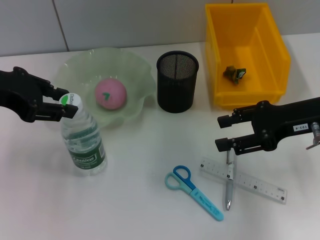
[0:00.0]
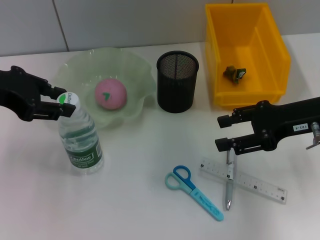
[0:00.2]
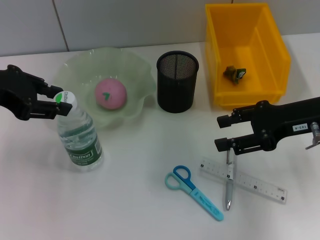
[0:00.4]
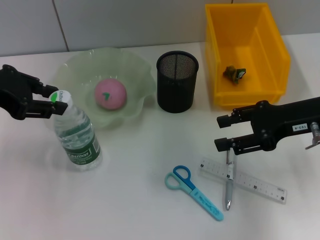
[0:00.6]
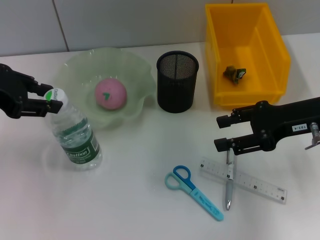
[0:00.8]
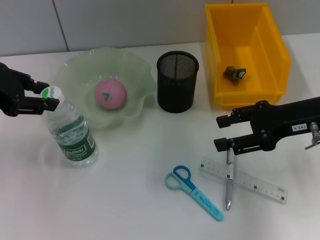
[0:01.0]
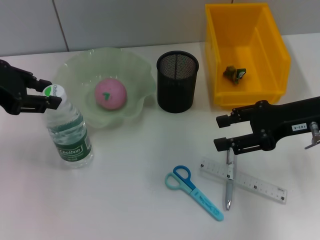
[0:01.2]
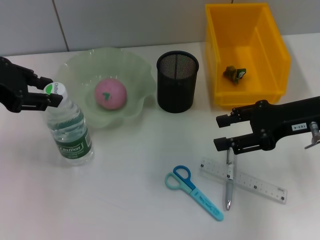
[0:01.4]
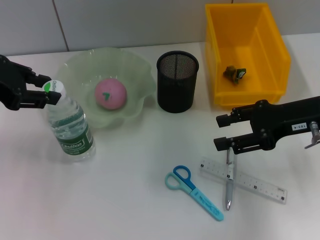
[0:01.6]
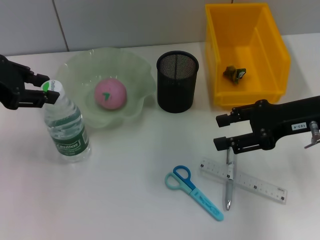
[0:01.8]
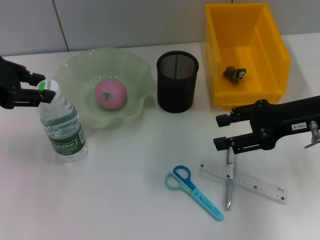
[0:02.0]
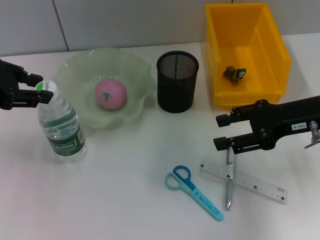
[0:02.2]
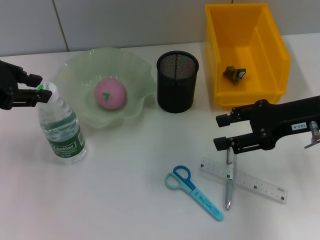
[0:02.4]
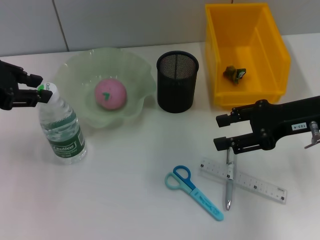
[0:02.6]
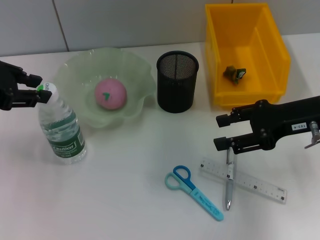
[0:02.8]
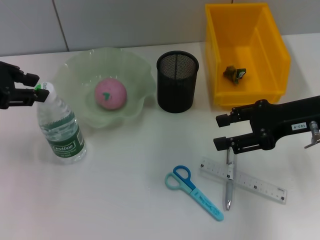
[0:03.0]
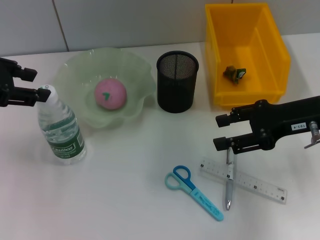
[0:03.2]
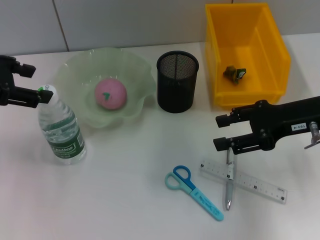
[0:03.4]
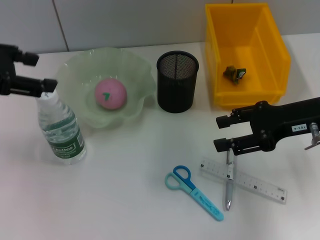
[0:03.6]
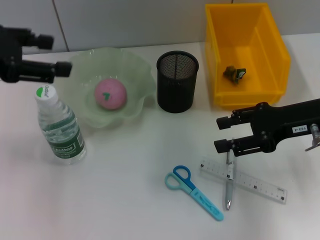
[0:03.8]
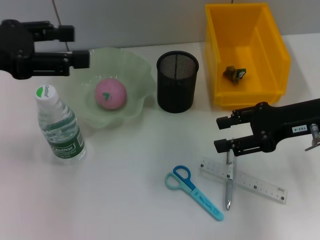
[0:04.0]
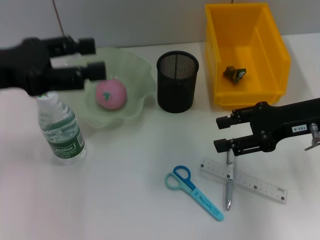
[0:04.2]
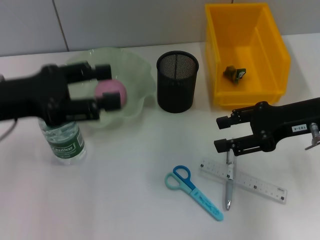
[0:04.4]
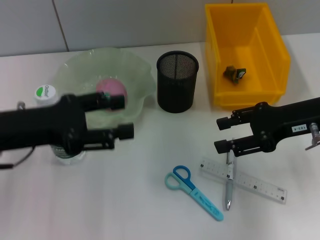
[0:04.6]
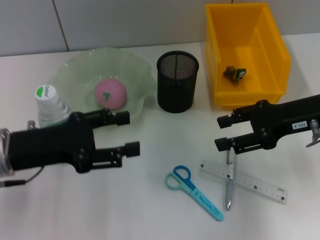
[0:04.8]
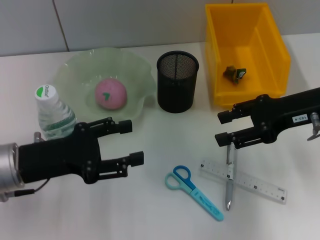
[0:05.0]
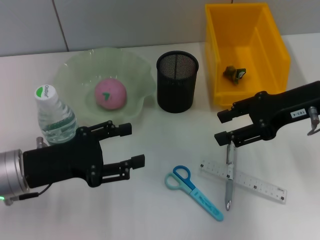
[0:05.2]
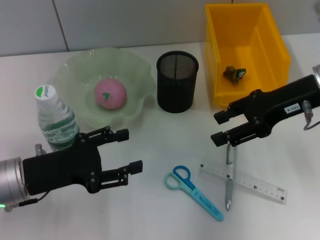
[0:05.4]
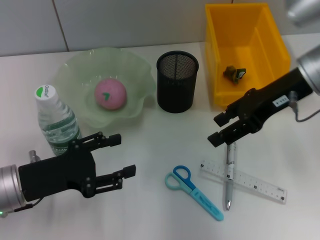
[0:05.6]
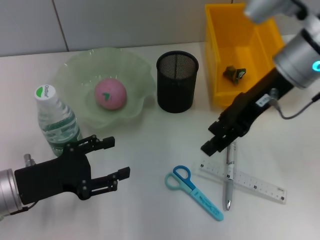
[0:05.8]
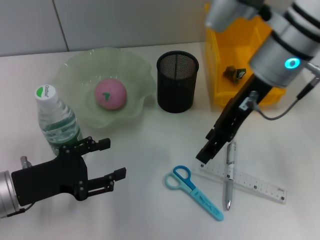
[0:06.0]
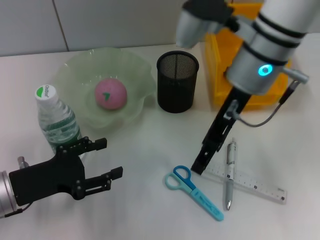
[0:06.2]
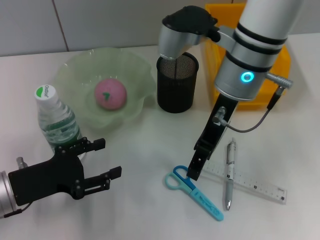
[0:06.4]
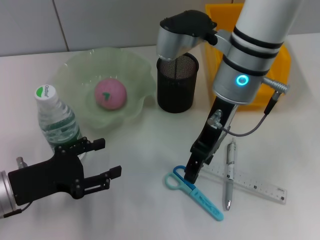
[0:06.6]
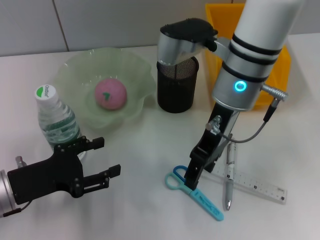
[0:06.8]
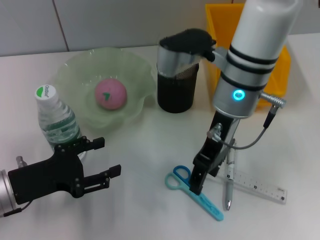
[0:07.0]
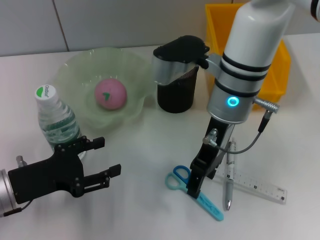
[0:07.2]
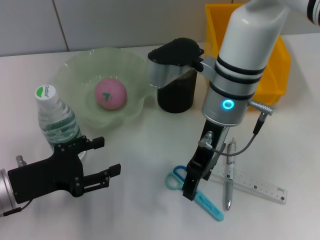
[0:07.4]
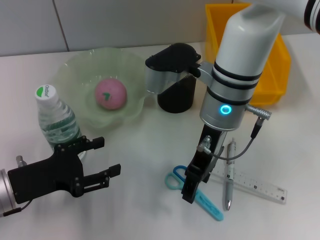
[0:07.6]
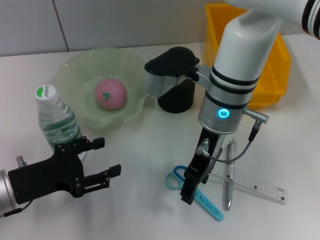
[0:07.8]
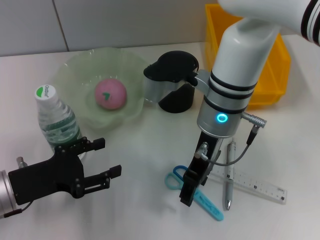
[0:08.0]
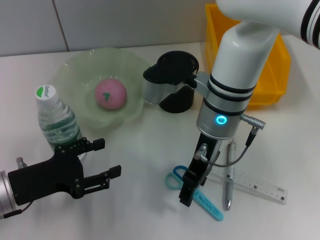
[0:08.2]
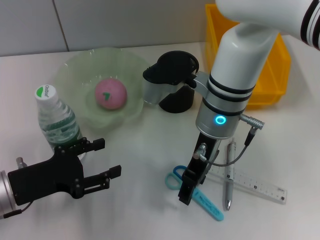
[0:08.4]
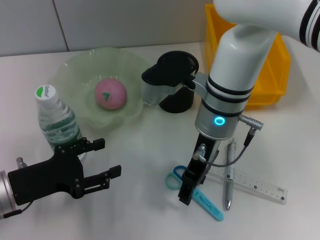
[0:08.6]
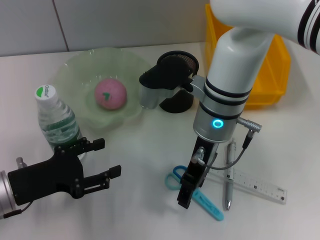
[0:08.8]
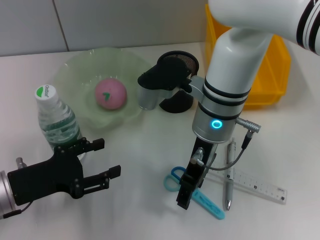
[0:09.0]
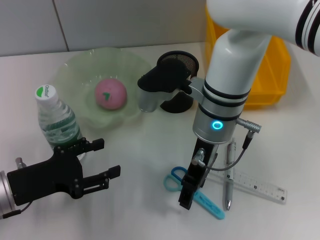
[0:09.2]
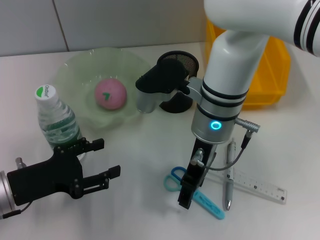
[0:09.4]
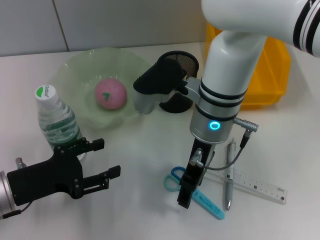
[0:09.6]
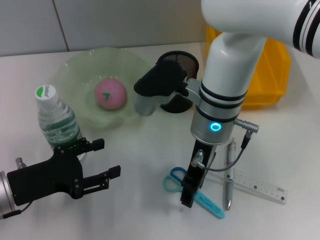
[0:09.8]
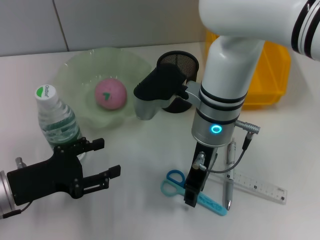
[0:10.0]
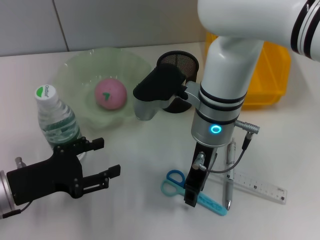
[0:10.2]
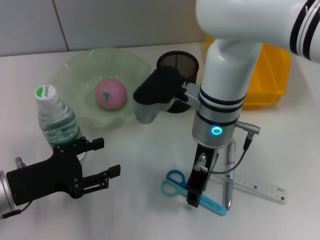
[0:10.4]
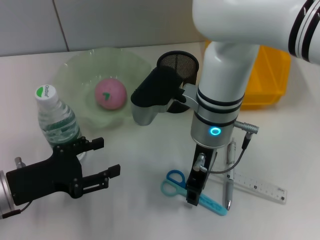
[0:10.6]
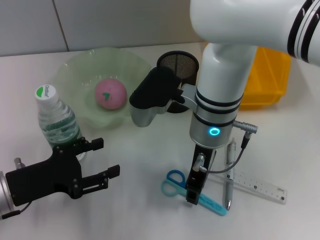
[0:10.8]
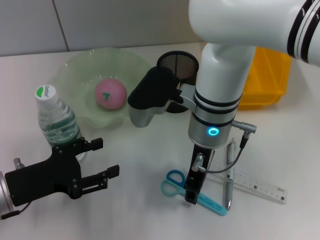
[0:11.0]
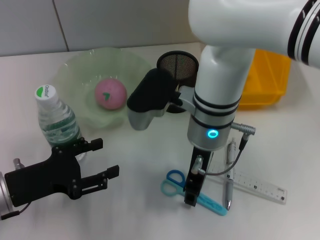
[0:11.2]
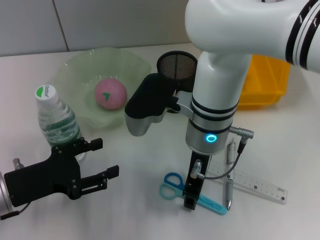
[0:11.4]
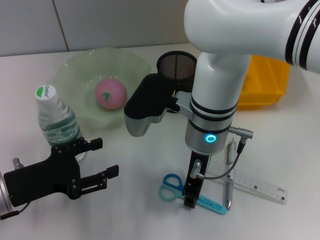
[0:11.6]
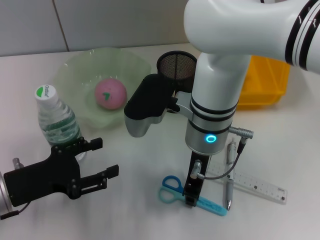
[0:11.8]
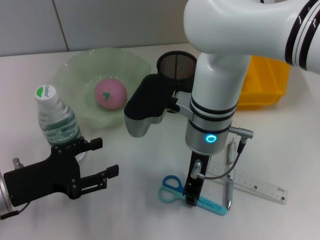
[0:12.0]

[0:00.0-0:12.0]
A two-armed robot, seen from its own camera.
Step, 0:00.0 to 0:03.6: Place the water bottle on the table with the left hand.
0:00.0 to 0:01.6: The grippers stay close to where they were, moving slightly.
0:01.6 to 0:03.0: Both grippers stay put.
0:03.0 to 0:04.4: The left gripper shifts approximately 5 cm downward, and opens.
0:04.4 to 0:06.0: The left gripper is displaced downward by some 15 cm. Meanwhile the right gripper travels to the left, upward and forward by about 15 cm.
0:06.0 to 0:07.6: The right gripper shifts about 10 cm to the left and downward.
0:07.6 to 0:12.0: There are only small adjustments of the grippers.

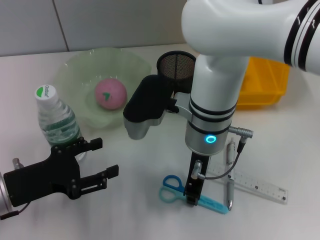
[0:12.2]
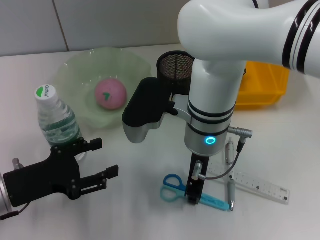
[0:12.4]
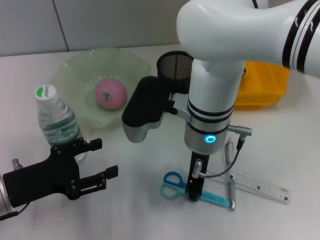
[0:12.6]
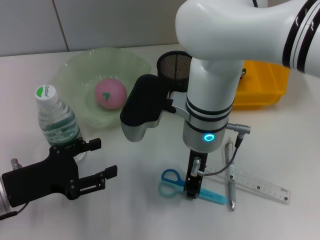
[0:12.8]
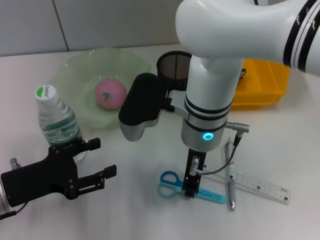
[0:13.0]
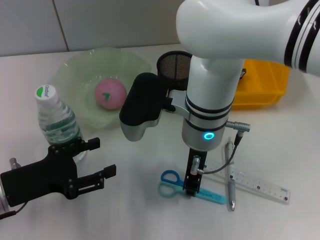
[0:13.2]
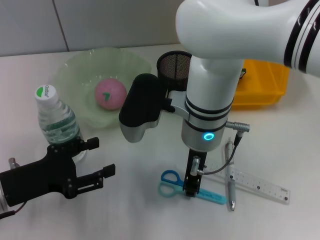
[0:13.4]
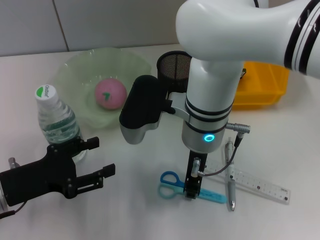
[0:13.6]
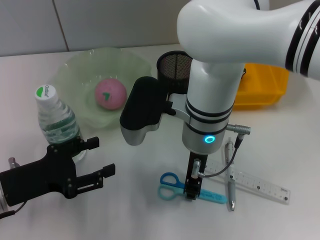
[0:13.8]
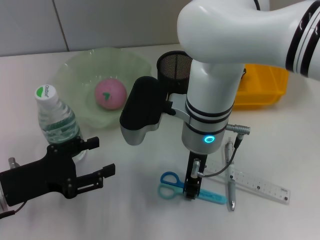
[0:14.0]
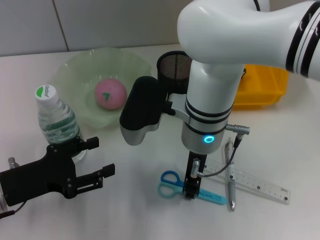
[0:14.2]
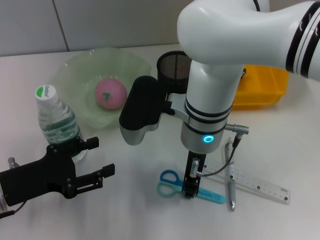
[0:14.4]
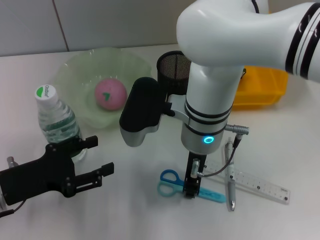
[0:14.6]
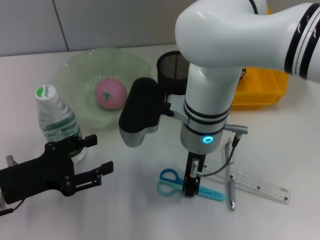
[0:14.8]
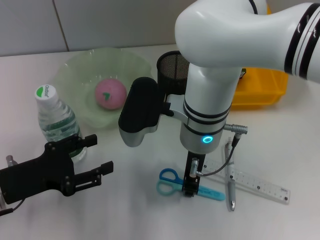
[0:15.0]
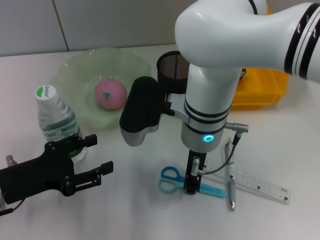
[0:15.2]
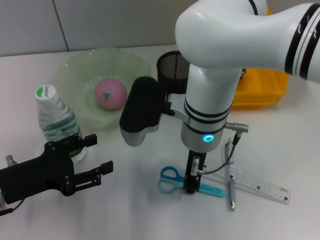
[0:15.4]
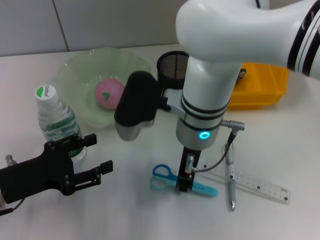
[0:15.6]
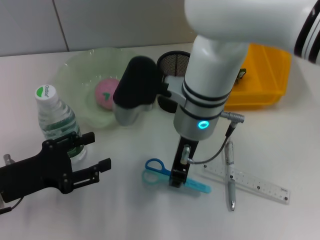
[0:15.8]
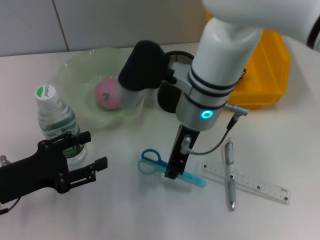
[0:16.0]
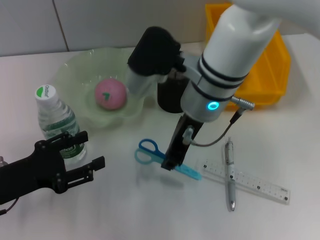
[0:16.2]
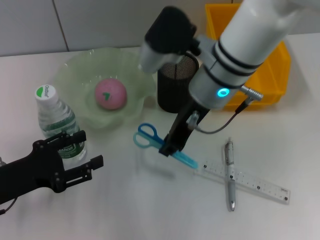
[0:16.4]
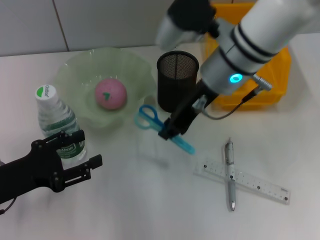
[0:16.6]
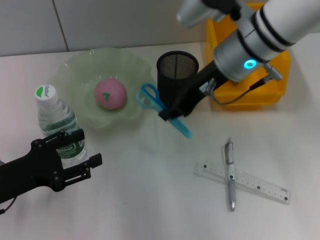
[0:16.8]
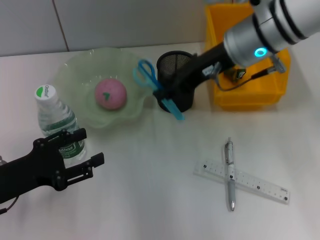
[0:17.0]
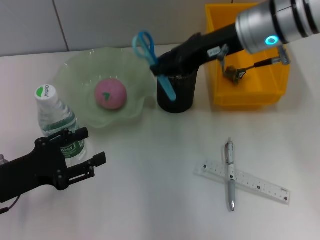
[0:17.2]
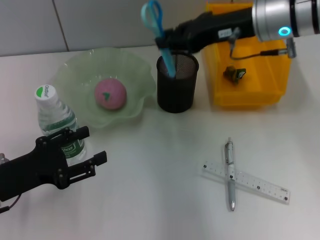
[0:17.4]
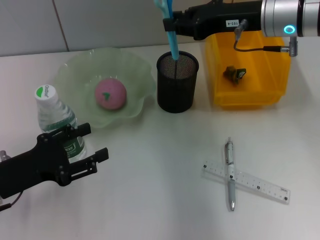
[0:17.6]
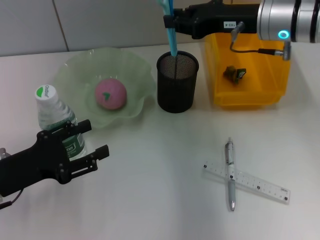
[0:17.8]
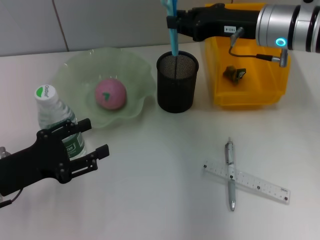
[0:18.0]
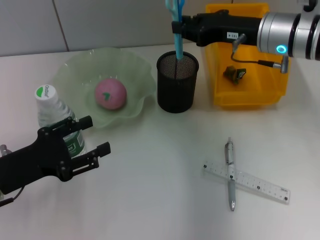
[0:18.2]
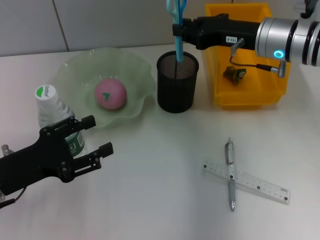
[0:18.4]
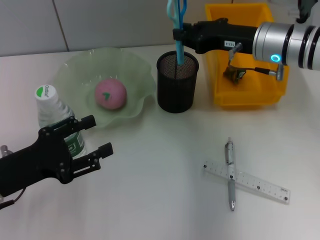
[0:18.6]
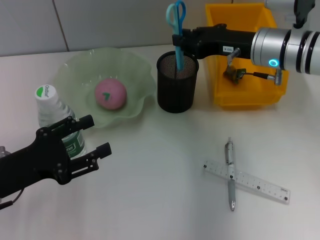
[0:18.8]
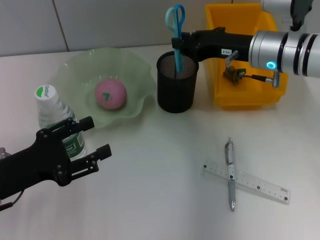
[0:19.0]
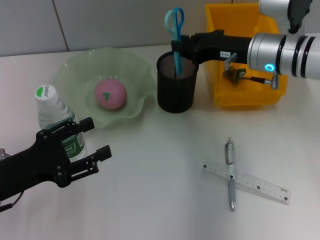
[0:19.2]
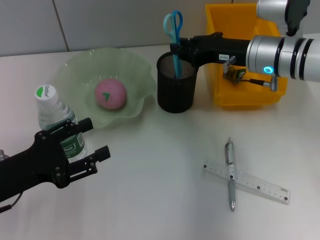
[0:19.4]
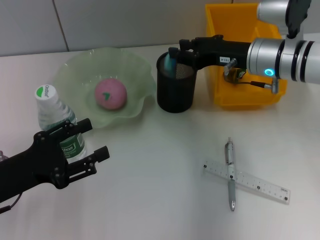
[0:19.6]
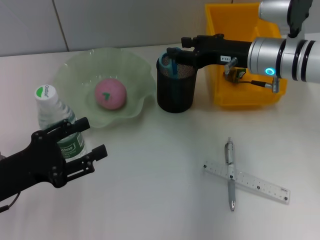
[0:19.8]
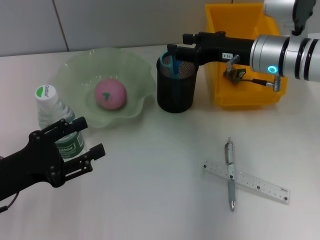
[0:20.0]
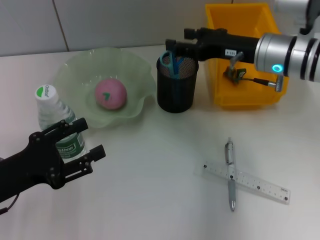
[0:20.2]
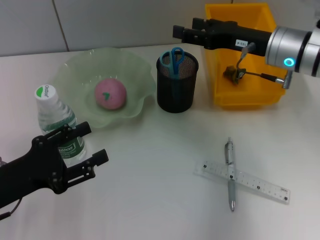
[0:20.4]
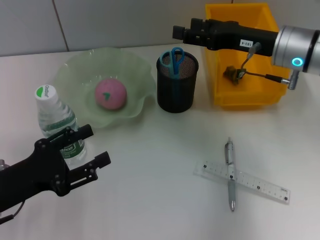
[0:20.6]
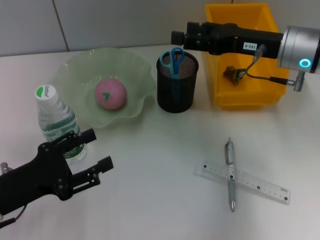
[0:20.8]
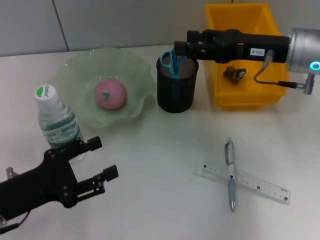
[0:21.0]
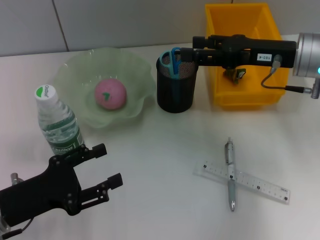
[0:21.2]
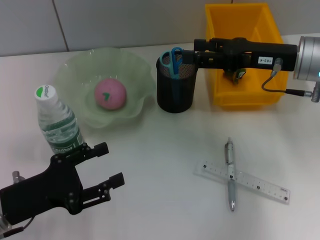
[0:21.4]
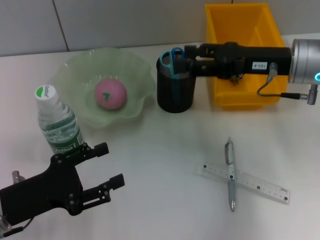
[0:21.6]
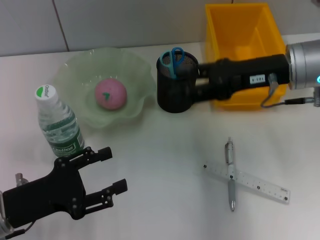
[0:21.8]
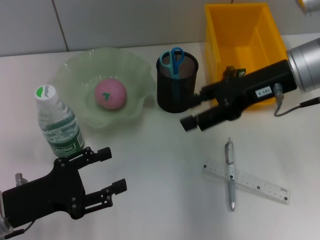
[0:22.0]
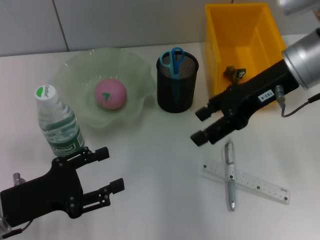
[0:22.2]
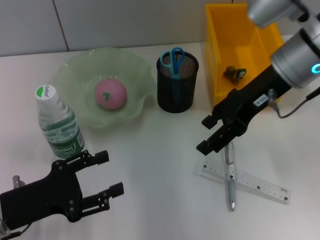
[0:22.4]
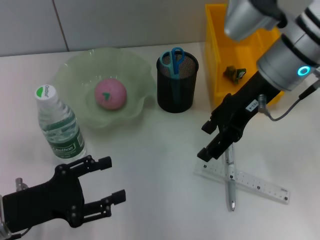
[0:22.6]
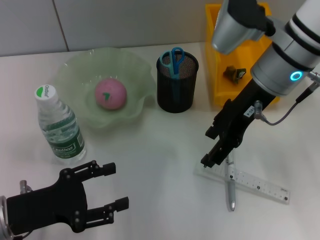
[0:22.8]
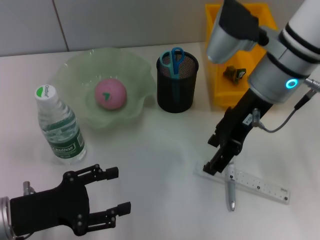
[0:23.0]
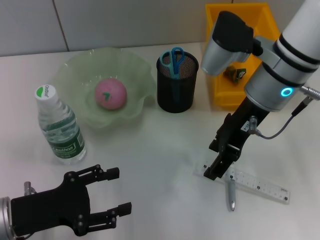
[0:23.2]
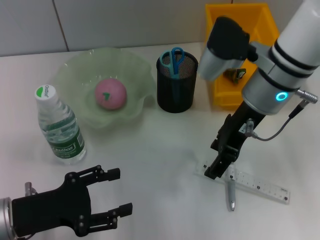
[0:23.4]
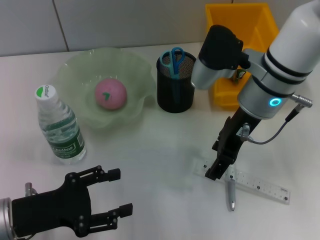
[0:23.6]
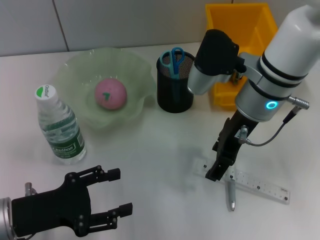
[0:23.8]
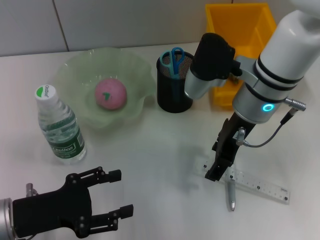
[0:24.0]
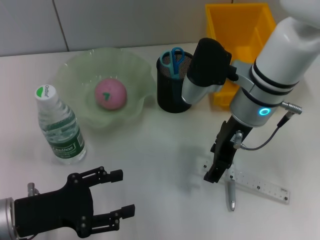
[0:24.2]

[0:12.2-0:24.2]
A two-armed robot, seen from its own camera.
Step, 0:13.2 to 0:20.0: Place the blue scissors into the pen holder with the right hand.
0:12.2 to 0:13.8: The grippers move only a little.
0:13.8 to 0:15.2: Both grippers stay put.
0:15.2 to 0:16.6: The right gripper is displaced upward and to the right by roughly 10 cm.
0:16.6 to 0:18.2: The right gripper heads to the right, covering about 10 cm.
0:18.2 to 0:19.8: There are only small adjustments of the grippers.
0:19.8 to 0:21.2: The right gripper ends up some 5 cm from where it was, and opens.
0:21.2 to 0:22.6: The right gripper shifts approximately 5 cm to the left.
0:22.6 to 0:24.2: The right gripper is displaced downward by about 5 cm.
